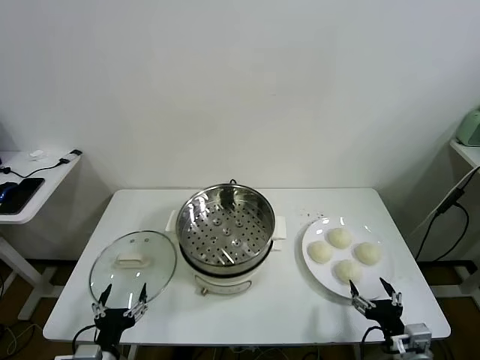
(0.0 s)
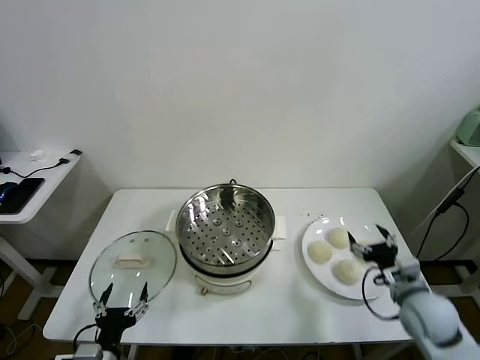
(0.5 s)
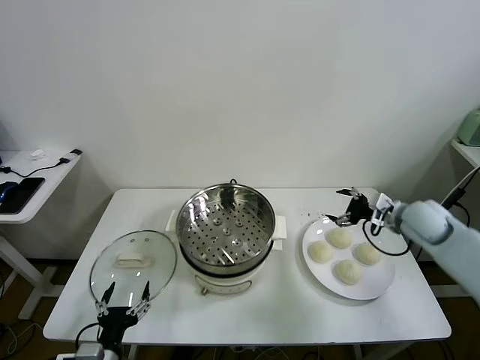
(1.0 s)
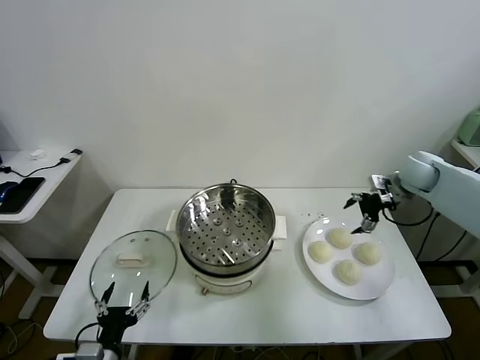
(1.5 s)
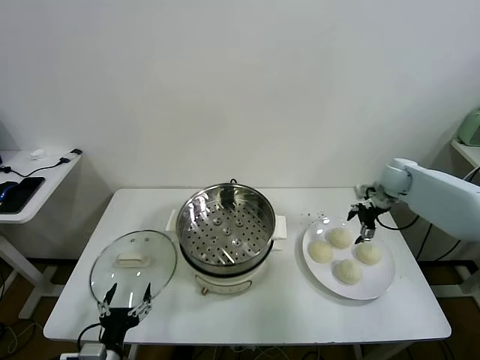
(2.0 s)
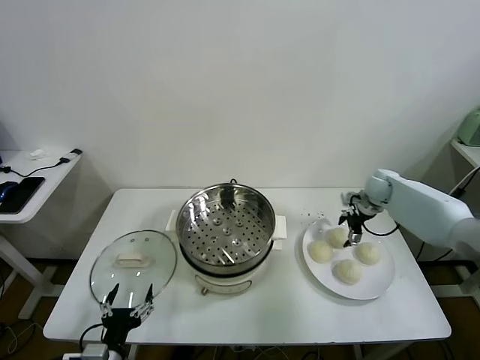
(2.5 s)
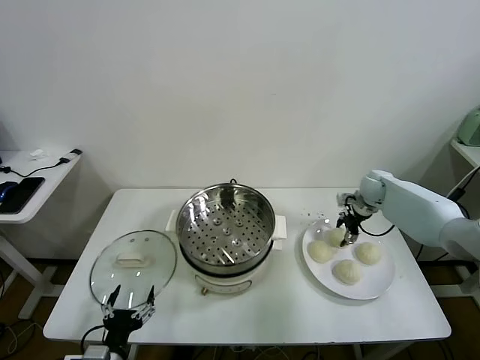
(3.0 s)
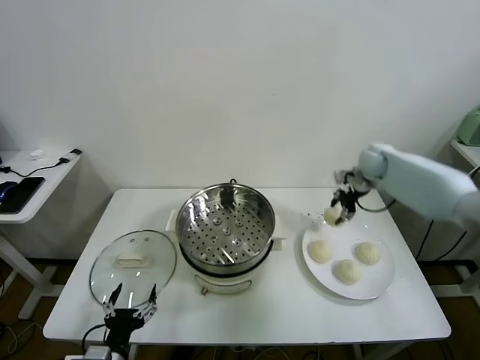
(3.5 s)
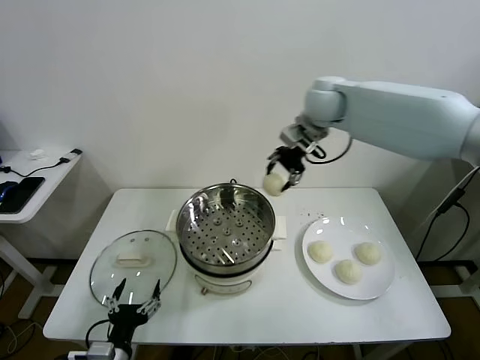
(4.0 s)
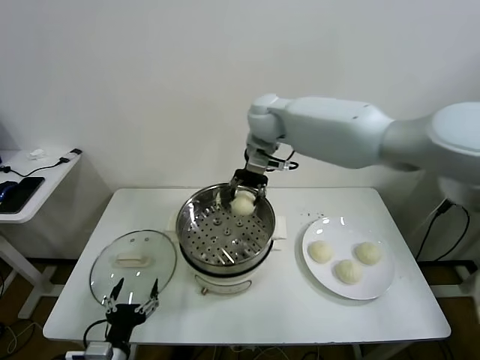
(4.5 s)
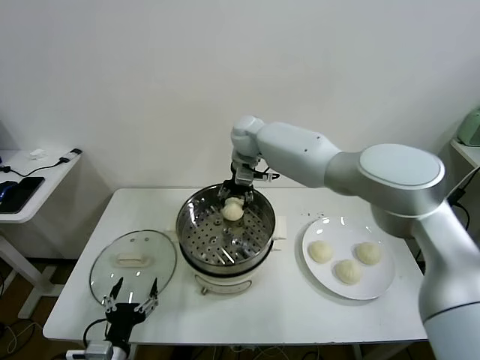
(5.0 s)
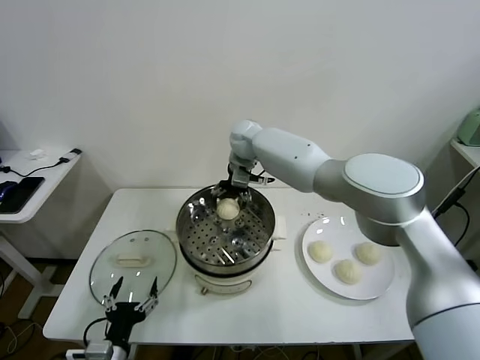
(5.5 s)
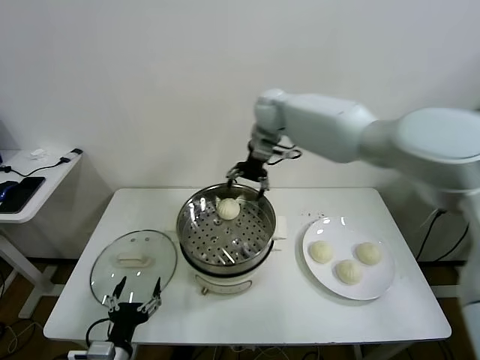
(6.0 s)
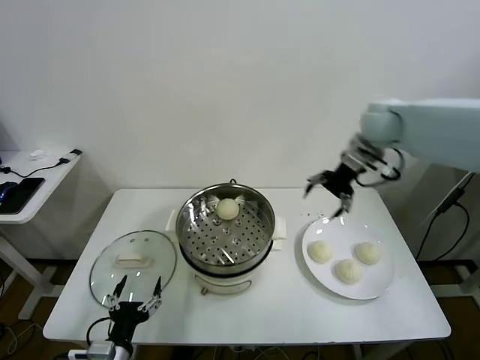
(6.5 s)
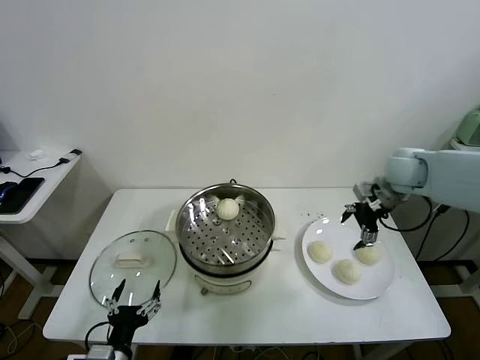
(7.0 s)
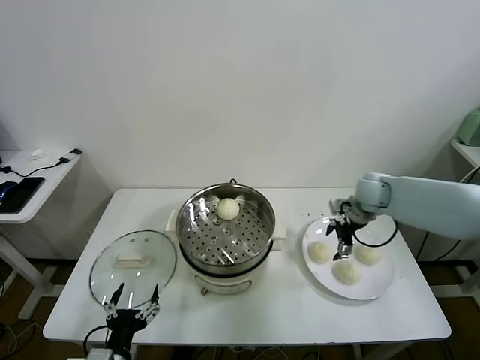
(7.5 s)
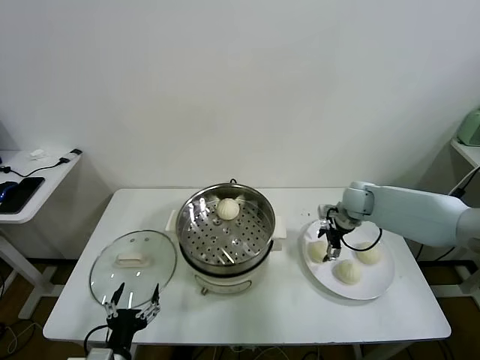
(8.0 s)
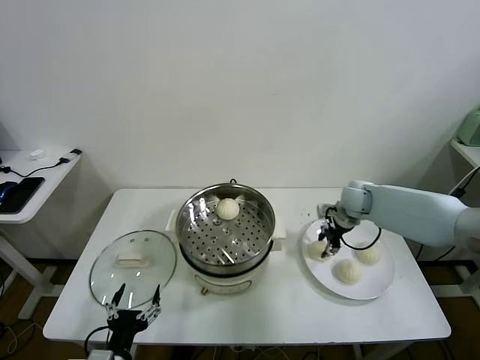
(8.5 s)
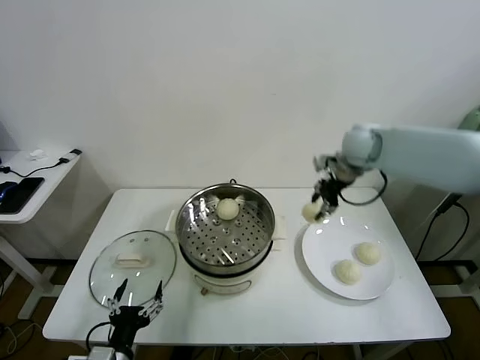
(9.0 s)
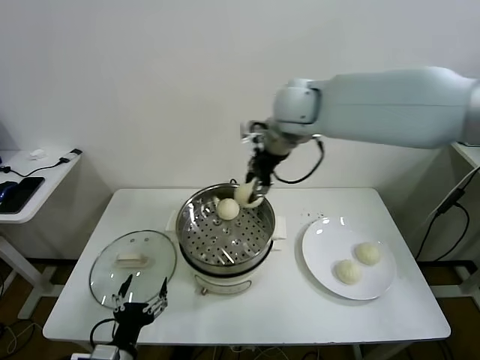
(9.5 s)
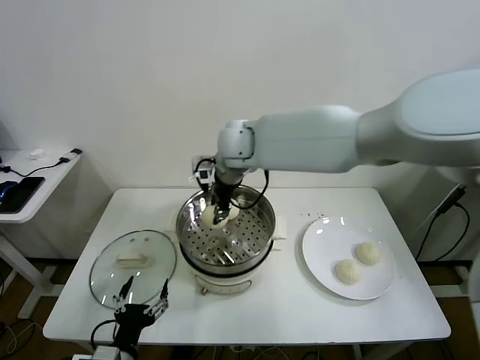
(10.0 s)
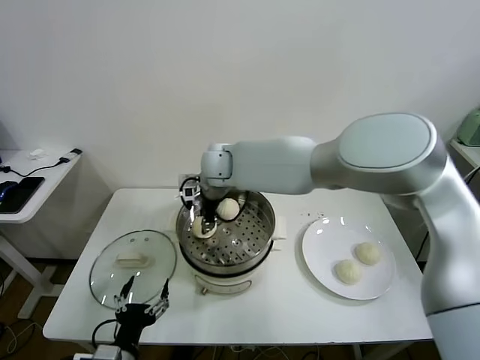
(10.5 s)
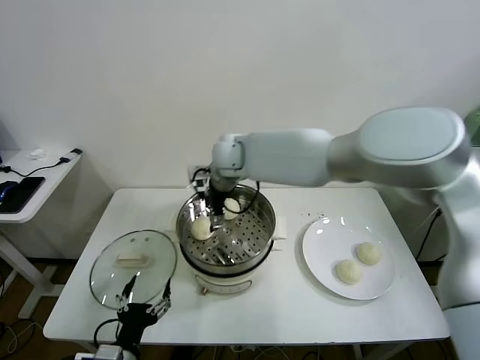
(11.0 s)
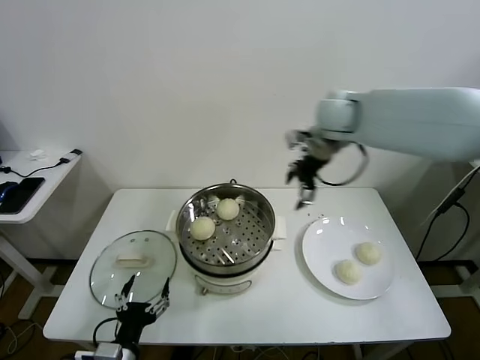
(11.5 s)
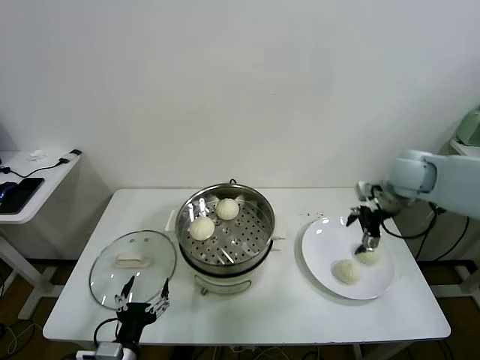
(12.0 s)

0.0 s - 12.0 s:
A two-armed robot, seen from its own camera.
Task of the whole recording: take steamed baozi put them in steamer.
Step, 0.0 s - 3.0 s: Grasp the baozi in the plate with right gripper.
Step, 3.5 s - 5.0 s: Place the baozi on the steamer with right gripper.
Step, 5.5 s - 8.0 s: Grasp the baozi in the plate with right gripper.
Step, 8.5 s - 10.5 s: Place the baozi on the steamer with right gripper.
2.0 s - 4.0 s: The right gripper is displaced to the left and upward by some 35 cm, and closes its fingers.
4.0 s - 6.0 s: The right gripper goes approximately 5 cm forward, reaches roughly 15 cm downward, then returns, and opens.
6.0 s - 8.0 s: The right gripper moves downward and to the right, about 30 cm.
8.0 s - 10.0 s: The right gripper travels to the left and upward by about 40 cm, and closes.
10.0 s - 12.0 s: The right gripper travels to the right by about 40 cm, and opens its fingers.

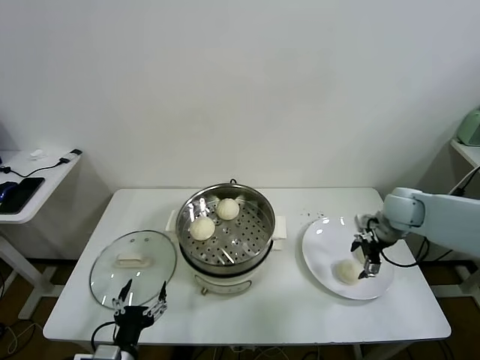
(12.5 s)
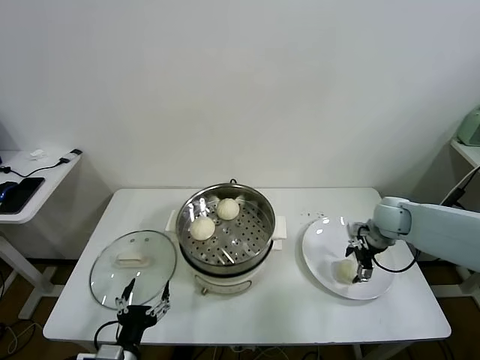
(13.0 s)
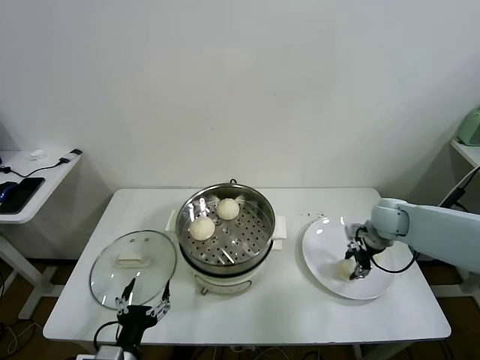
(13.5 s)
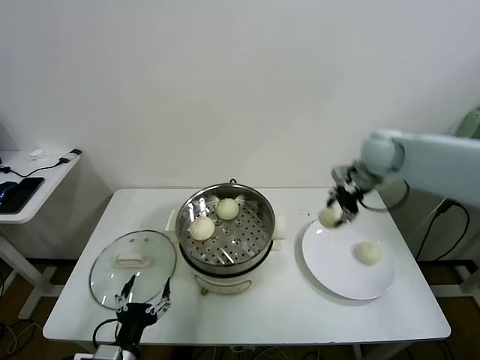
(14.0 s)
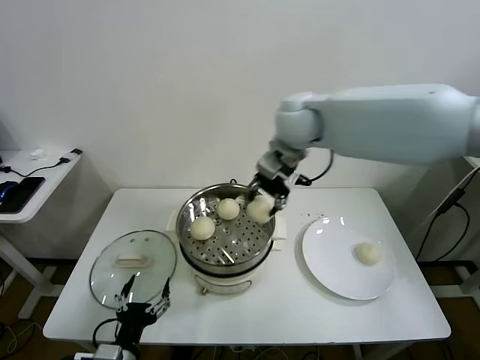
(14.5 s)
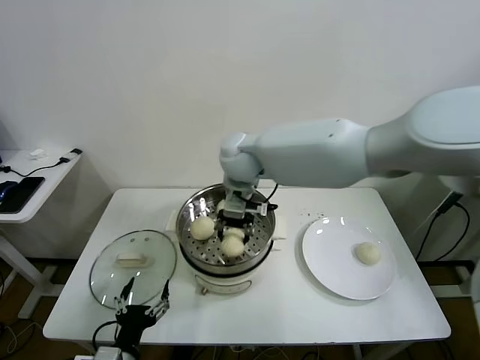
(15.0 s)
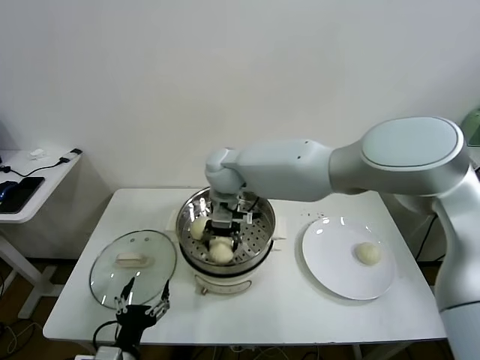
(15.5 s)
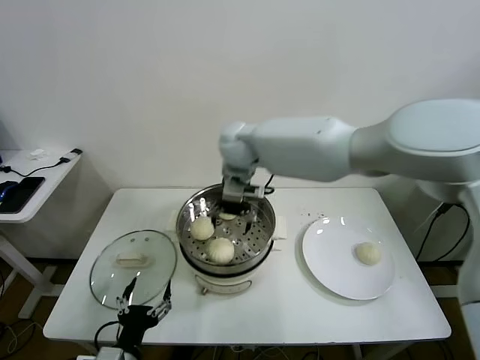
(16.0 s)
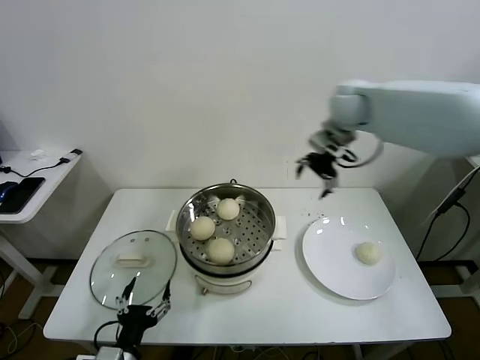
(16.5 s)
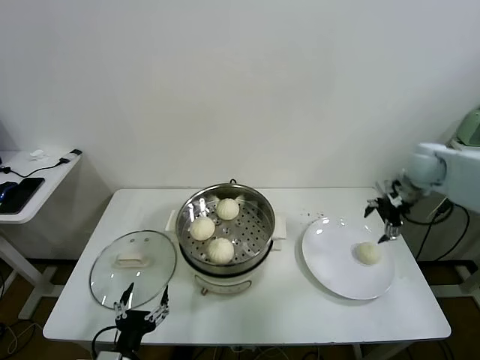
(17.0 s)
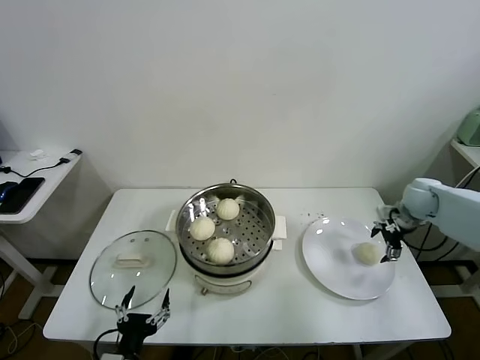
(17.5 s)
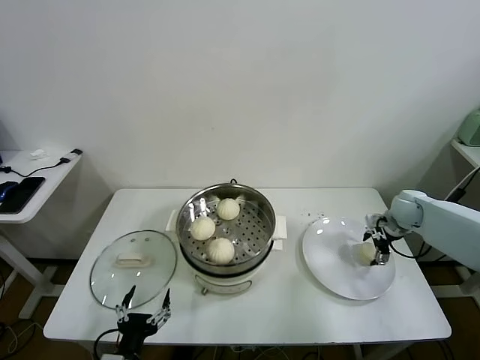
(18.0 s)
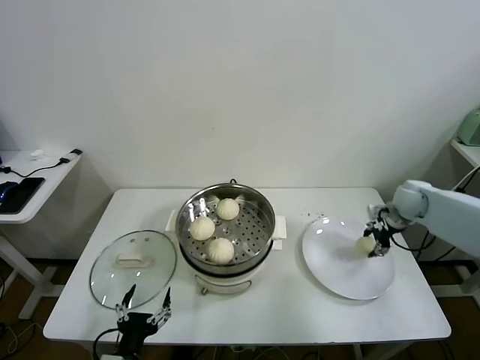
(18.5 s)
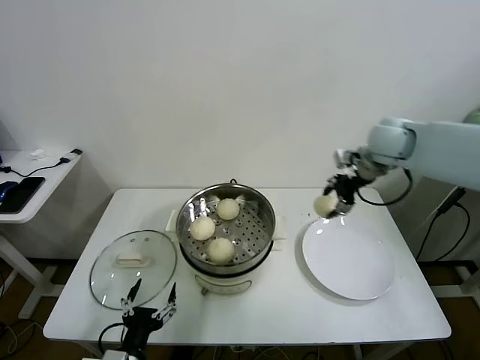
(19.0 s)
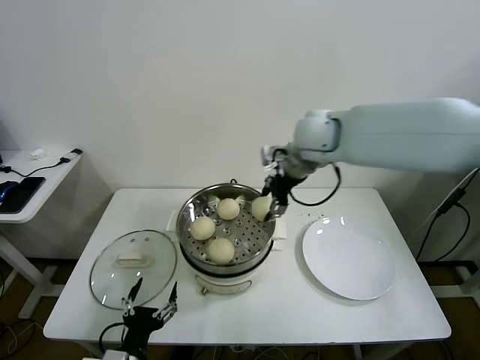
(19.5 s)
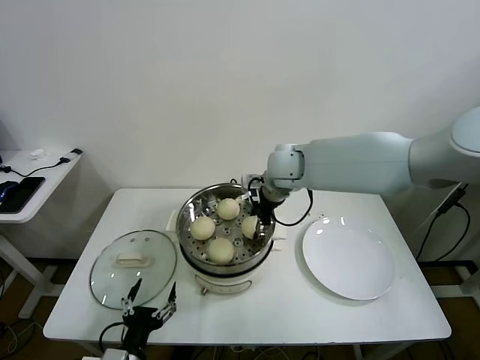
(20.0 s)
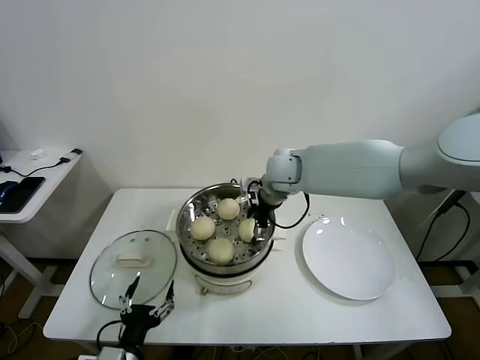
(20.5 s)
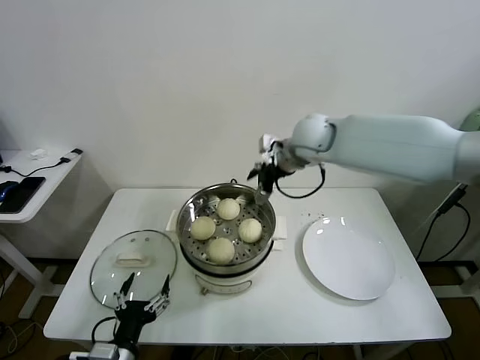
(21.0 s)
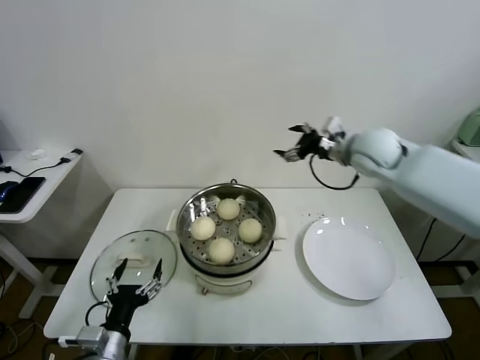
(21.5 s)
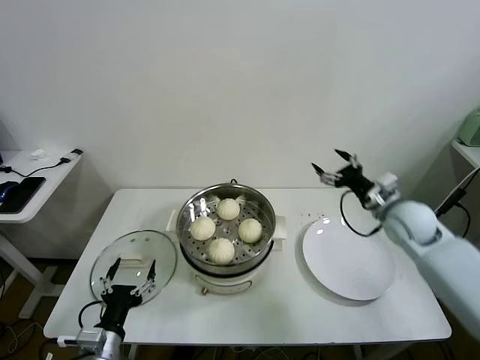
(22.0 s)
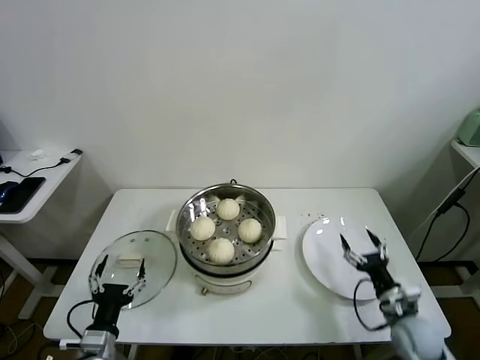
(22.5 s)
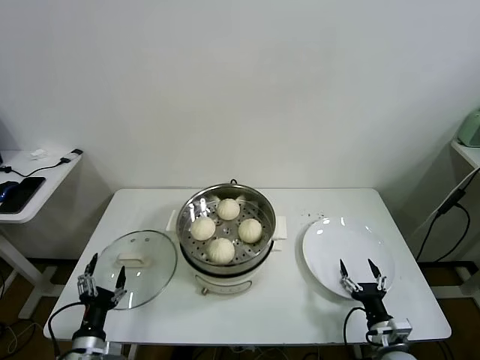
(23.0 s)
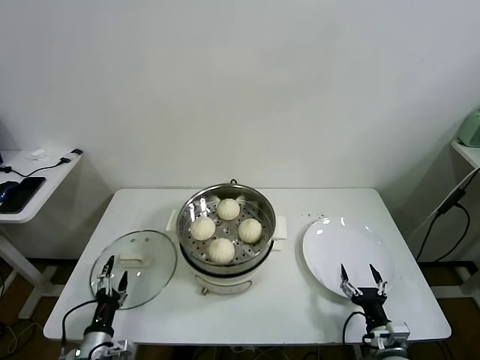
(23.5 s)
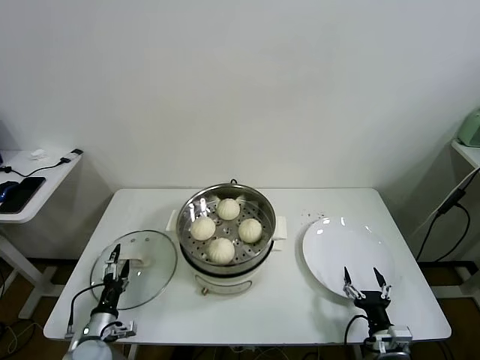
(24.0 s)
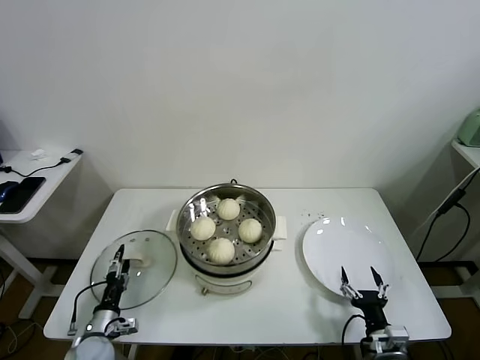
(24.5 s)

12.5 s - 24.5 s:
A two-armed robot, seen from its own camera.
Task of the whole recording: take steamed baozi put them in steamer.
Step, 13.5 s - 15.5 s: Place the baozi on the steamer with right gripper.
Step, 16.0 s - 18.0 s: Grasp the baozi in the plate with right gripper.
Step, 18.5 s - 20.5 s: Place the baozi on the steamer with right gripper.
12.5 s - 14.5 s: The right gripper goes roughly 35 cm to the left and upward, and closes up.
14.5 s - 16.5 s: The right gripper shifts roughly 15 cm to the right and forward, and opens.
16.5 s - 18.5 s: The right gripper is displaced downward and to the right by approximately 30 cm, and closes its fingers.
18.5 s - 20.5 s: The right gripper moves to the left, some 35 cm, and opens up.
20.5 s - 22.5 s: The left gripper is displaced to the left by roughly 5 cm. The right gripper is displaced to the right, downward and backward by roughly 50 cm.
22.5 s - 24.5 s: The left gripper shifts roughly 15 cm downward, forward and to the left. Meanwhile the right gripper moves backward and to the left, approximately 10 cm.

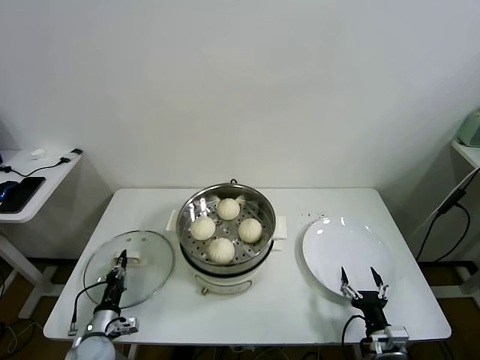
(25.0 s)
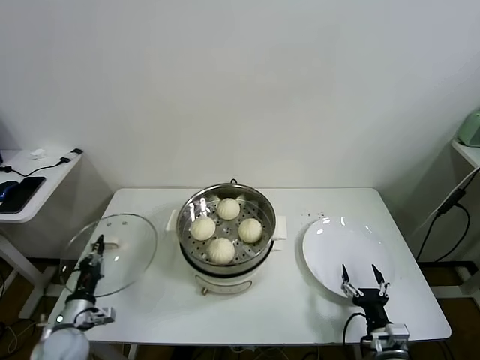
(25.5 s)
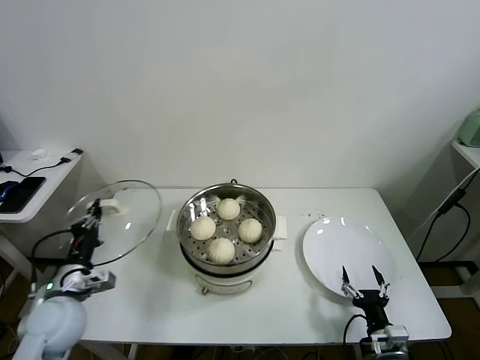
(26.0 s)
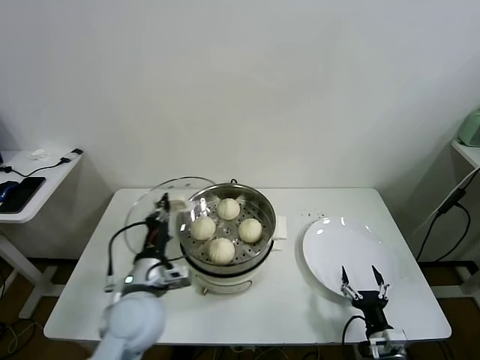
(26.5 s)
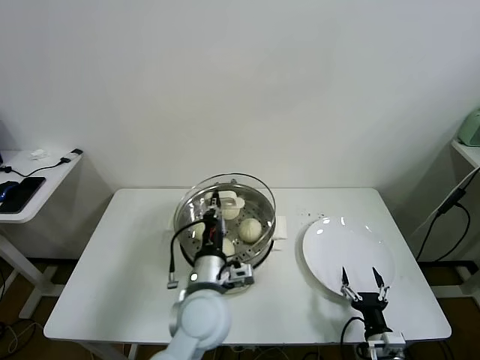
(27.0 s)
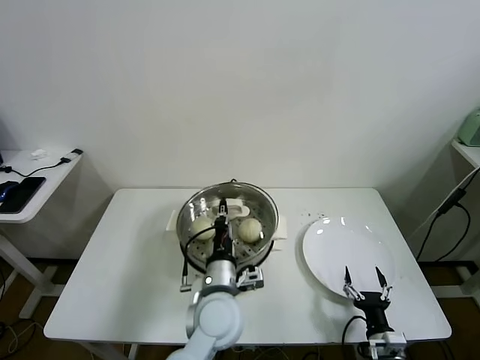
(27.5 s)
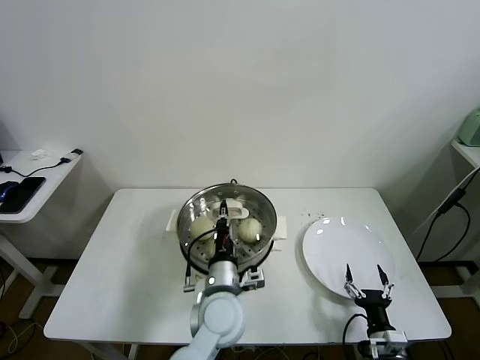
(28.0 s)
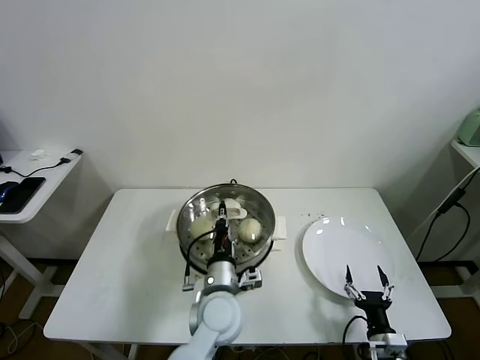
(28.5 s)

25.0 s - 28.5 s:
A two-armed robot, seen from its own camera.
Task of the whole recording: take steamed baozi put them in steamer.
25.0 s - 27.0 s: The left gripper travels to the right and upward by some 35 cm.
27.0 s - 28.5 s: The left gripper is displaced downward by roughly 5 cm.
